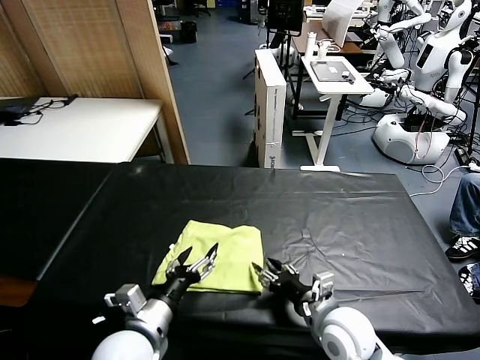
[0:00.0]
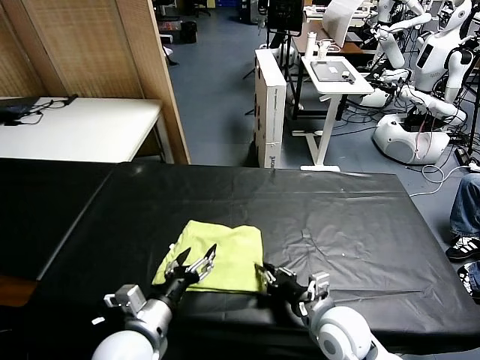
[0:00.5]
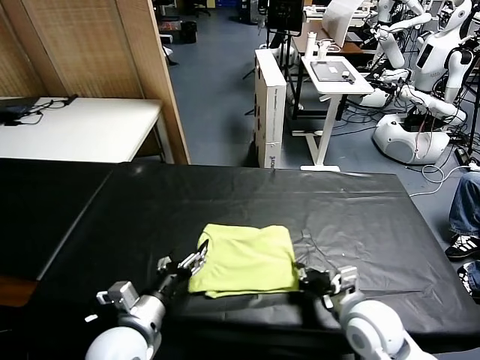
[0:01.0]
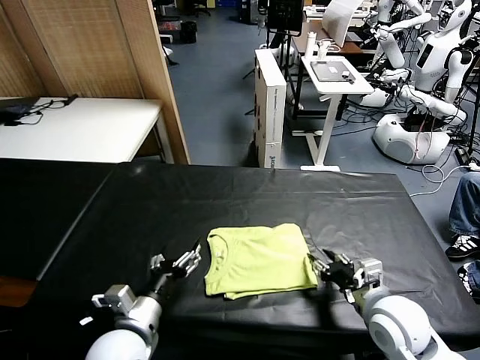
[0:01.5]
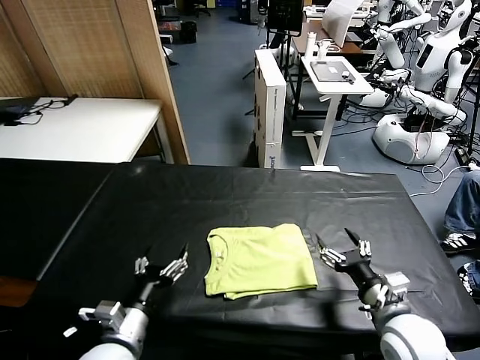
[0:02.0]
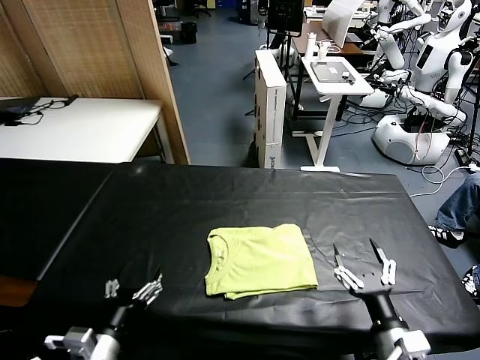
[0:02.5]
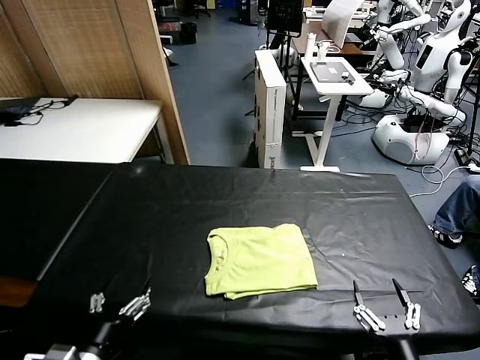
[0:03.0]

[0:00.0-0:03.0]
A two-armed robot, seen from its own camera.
Task of the whole recording: fold and organize the clothes.
0:00.0 to 0:01.5: The right gripper travels to the right by about 5 cm.
0:01.5 to 0:03.0: The right gripper is displaced backward by approximately 20 cm, and opens up. Meanwhile the left gripper heads backward and to the left, covering approximately 10 cm.

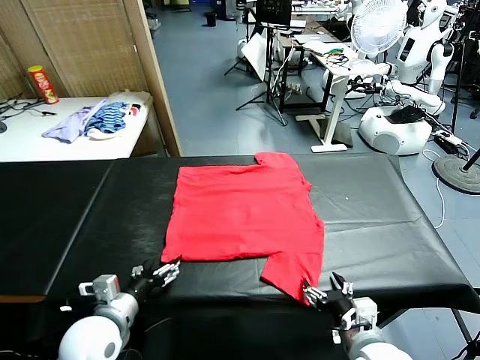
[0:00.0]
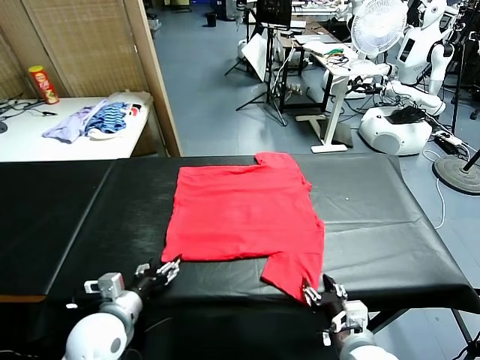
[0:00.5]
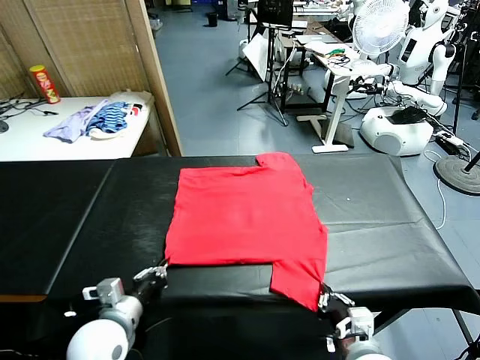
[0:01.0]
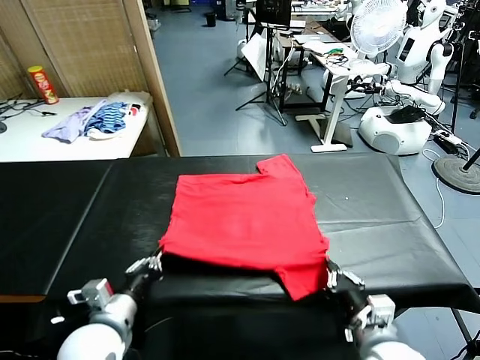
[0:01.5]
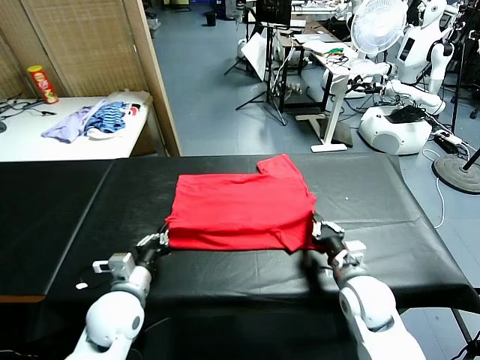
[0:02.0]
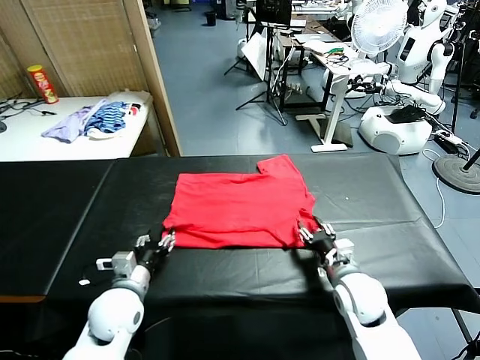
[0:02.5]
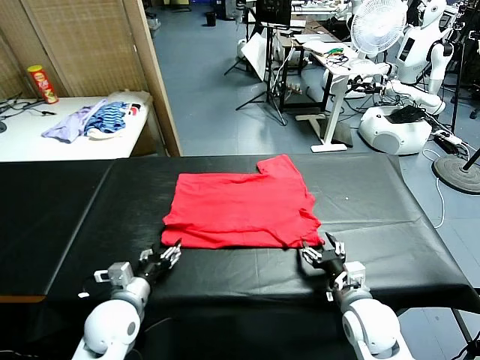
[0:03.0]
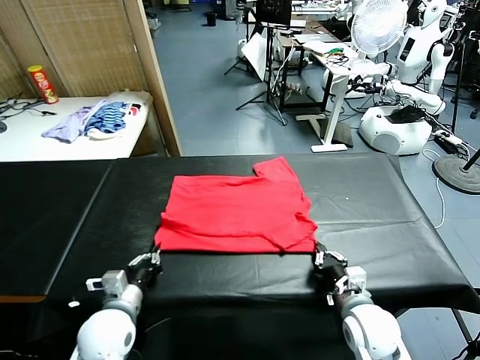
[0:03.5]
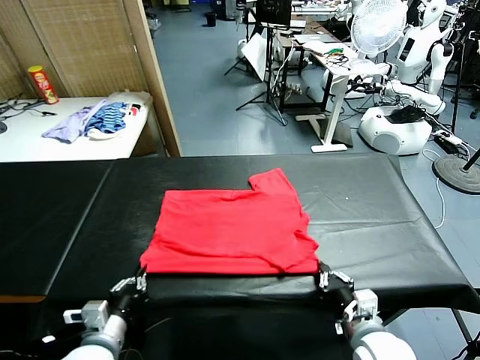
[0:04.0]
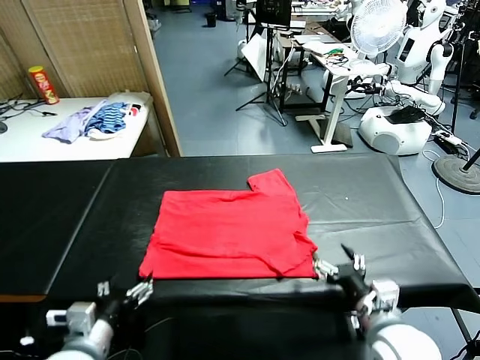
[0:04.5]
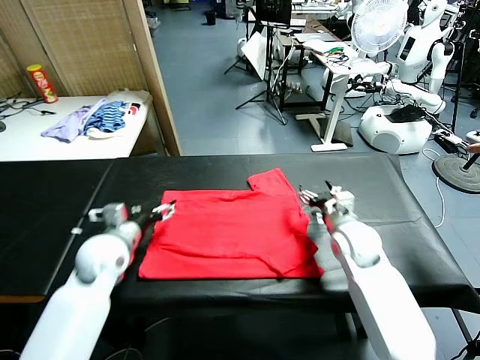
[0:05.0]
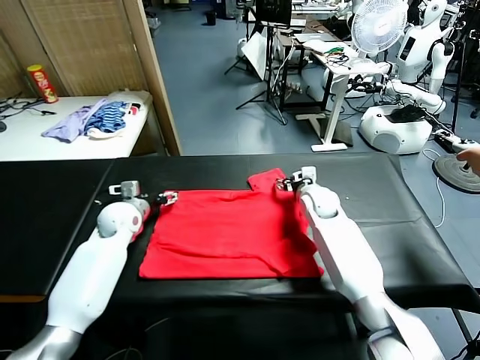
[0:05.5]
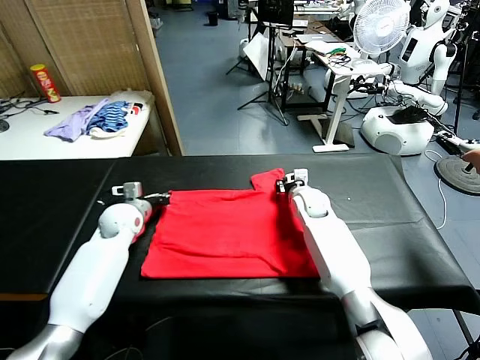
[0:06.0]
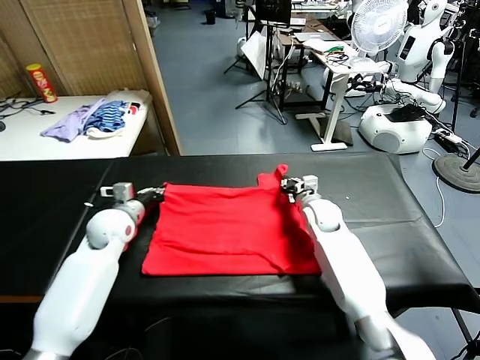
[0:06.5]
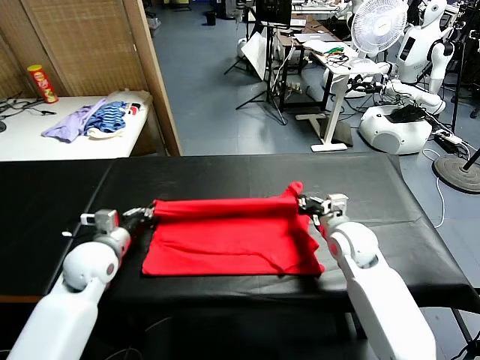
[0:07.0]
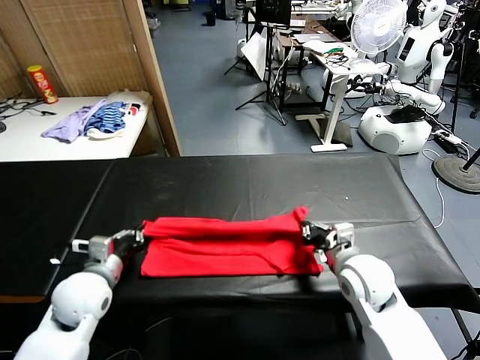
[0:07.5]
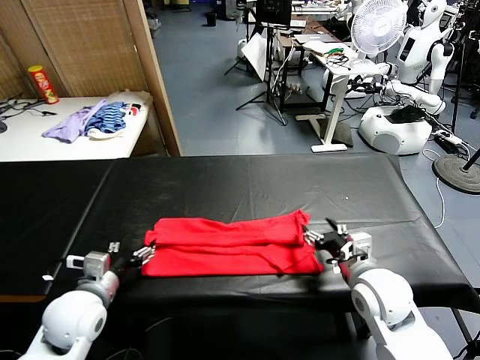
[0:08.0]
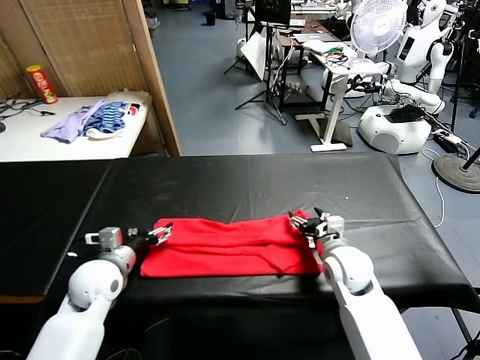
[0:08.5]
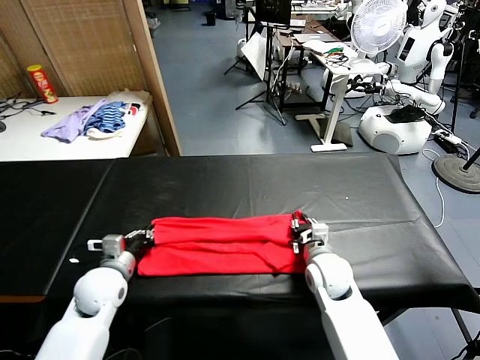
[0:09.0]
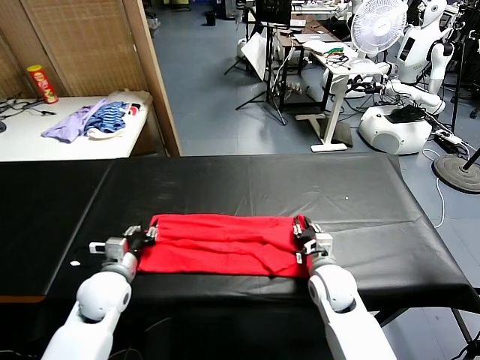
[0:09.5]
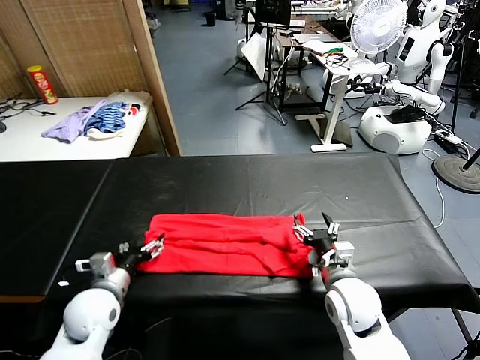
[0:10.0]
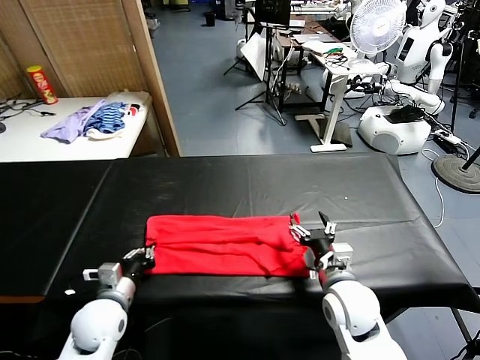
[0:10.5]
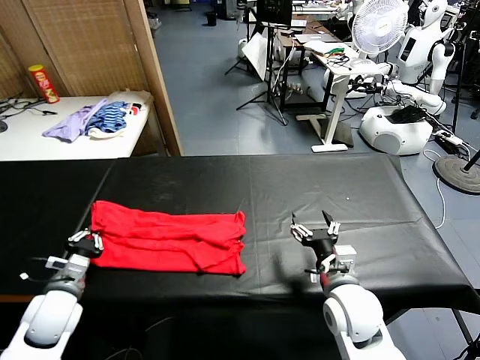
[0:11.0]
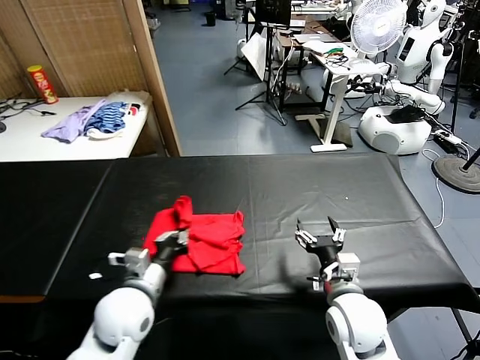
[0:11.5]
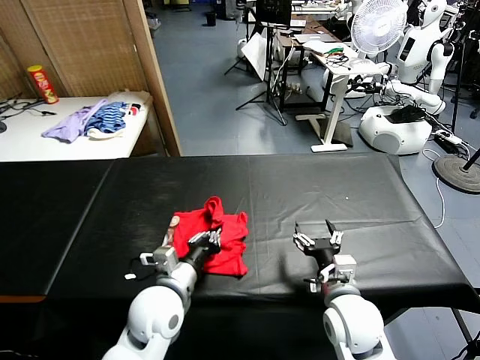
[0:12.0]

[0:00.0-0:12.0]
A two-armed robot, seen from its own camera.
Task of the whole recording: fold and organize the clothes.
Step, 0:00.0 to 0:00.5: use both grippers simultaneously to clamp the lower edge of the clothing fabric.
Step, 0:01.0 to 0:02.5: use both grippers to drag the lower edge of the fabric forward and fold it over the upper edge.
Step, 0:03.0 to 0:04.0: Drag the clothes downward with both gripper.
Step, 0:04.5 to 0:05.5: use both grippers simultaneously to clamp the upper edge of the clothing fabric.
Step, 0:06.0 to 0:07.5: use both grippers to drag the upper edge of the fabric backward and fold it over the lower edge.
Step, 0:08.0 to 0:10.5: use the left gripper to clamp the left edge of the fabric.
0:02.0 to 0:04.0: The two grippers go roughly 15 cm backward. The right gripper opens, while the left gripper opens its fingers.
0:04.0 to 0:06.0: Both grippers move forward, some 35 cm. The left gripper closes. The right gripper closes its fingers.
0:06.0 to 0:08.0: Both grippers move backward, some 20 cm. The right gripper opens up; the left gripper opens up.
0:08.0 to 0:10.0: The left gripper moves downward, some 5 cm, and closes, then reopens; the right gripper closes, then opens again.
0:10.0 to 0:12.0: The left gripper moves to the right, about 15 cm, and closes.

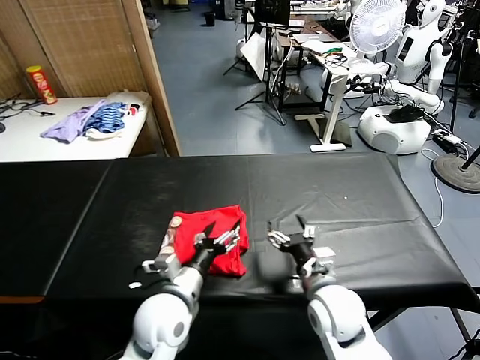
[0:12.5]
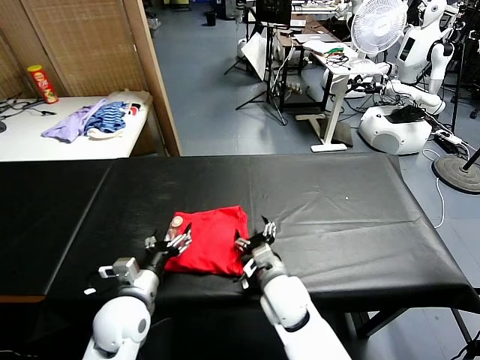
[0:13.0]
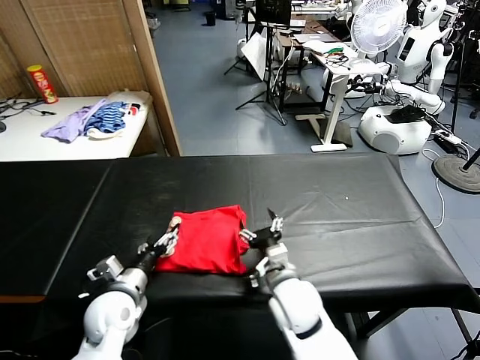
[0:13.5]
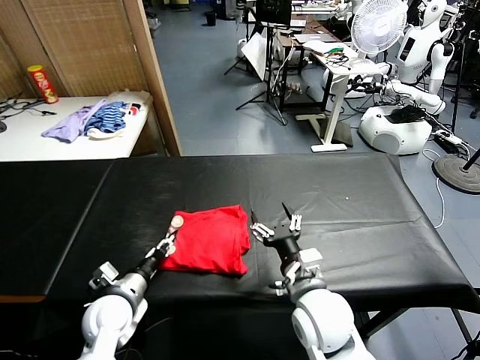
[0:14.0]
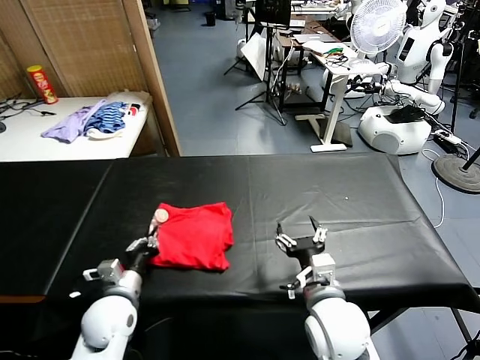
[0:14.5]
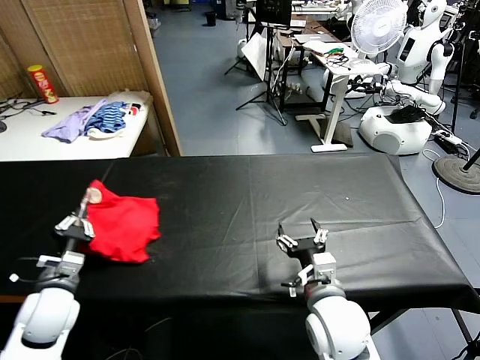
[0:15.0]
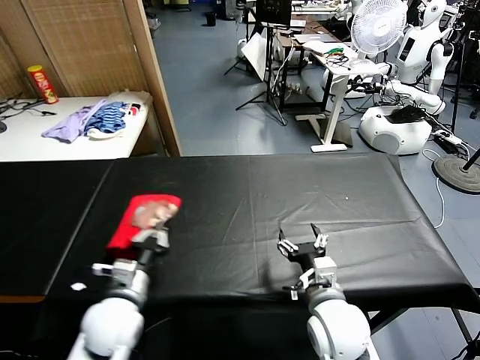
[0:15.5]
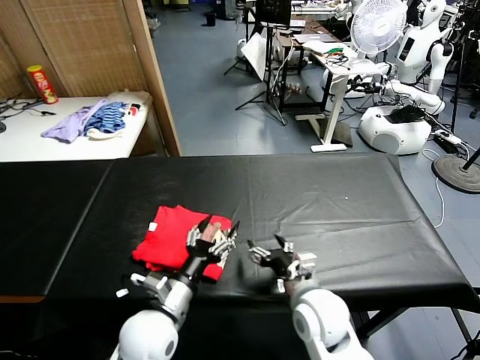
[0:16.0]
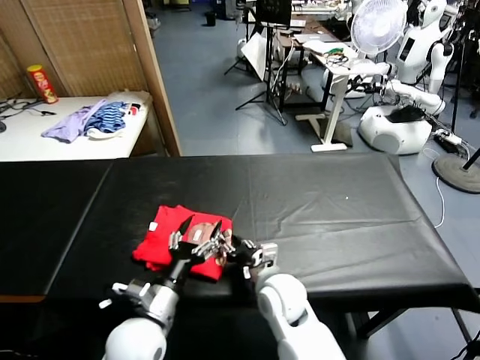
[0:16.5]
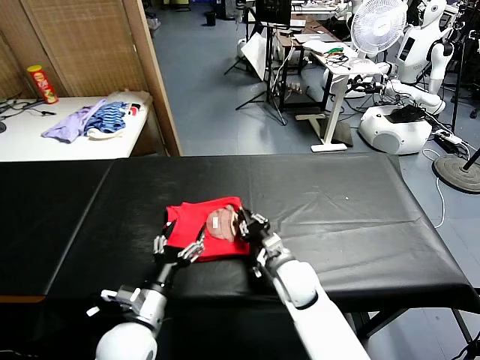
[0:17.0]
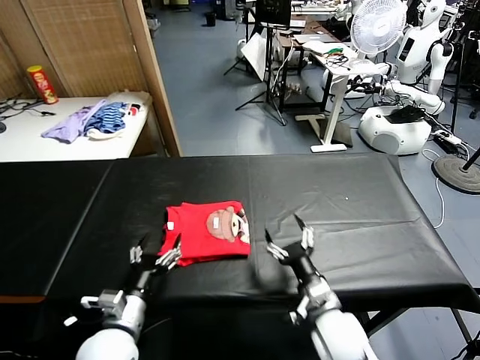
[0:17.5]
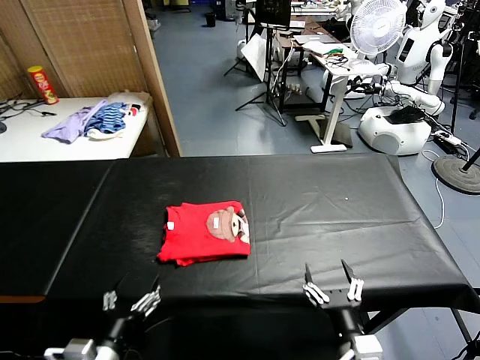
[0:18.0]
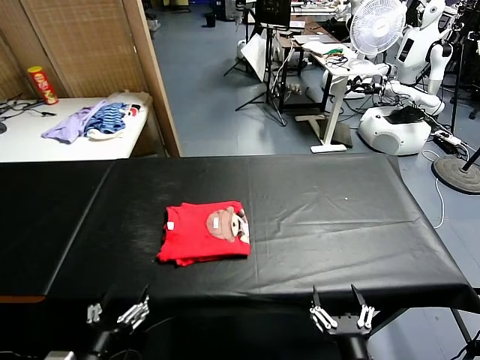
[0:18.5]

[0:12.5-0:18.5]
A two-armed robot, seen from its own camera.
Task of the whole recording: fold and organize the clothes.
Step, 0:12.5 to 0:15.5: Flip the folded clothes over with left gripper.
Step, 0:16.0 to 0:17.0: Drag the clothes to the center of the table.
0:12.5 to 0:14.5: The left gripper is displaced to the left and downward by about 15 cm, and closes. Meanwhile the right gripper travels backward by approximately 5 cm.
0:14.5 to 0:16.5: The left gripper moves to the right and backward, approximately 10 cm, and opens. Meanwhile the right gripper is displaced to the left, forward and downward by some 15 cm, and closes its fingers.
0:16.5 to 0:18.5: The left gripper goes some 15 cm backward and to the left. The right gripper travels backward and to the right by roughly 25 cm, and opens up.
